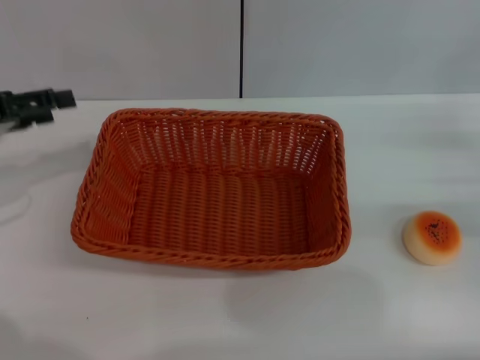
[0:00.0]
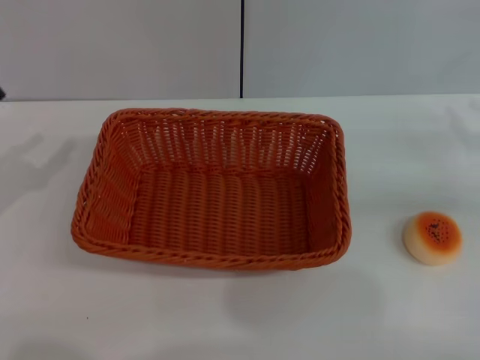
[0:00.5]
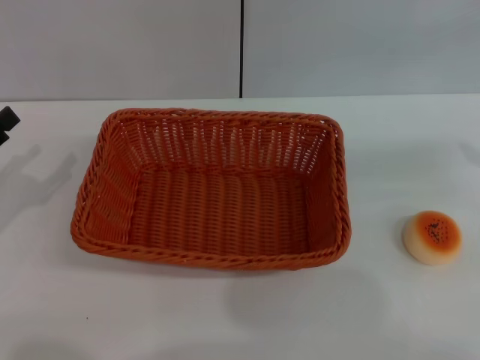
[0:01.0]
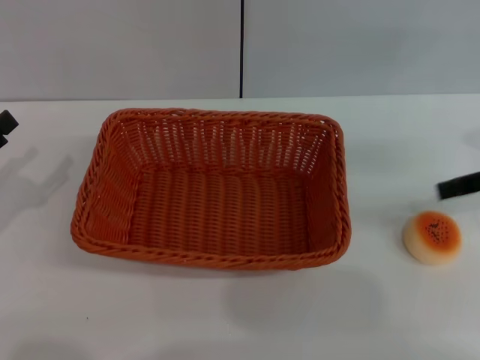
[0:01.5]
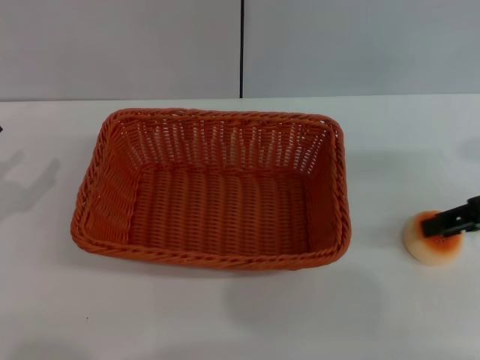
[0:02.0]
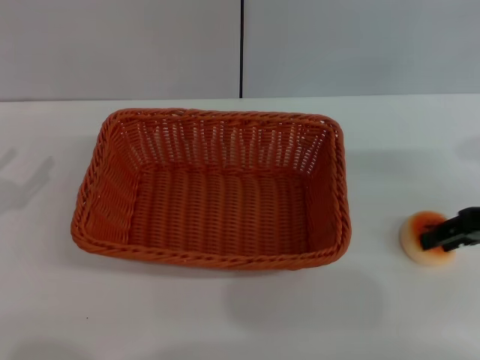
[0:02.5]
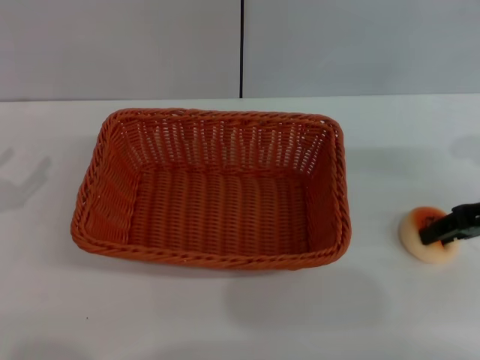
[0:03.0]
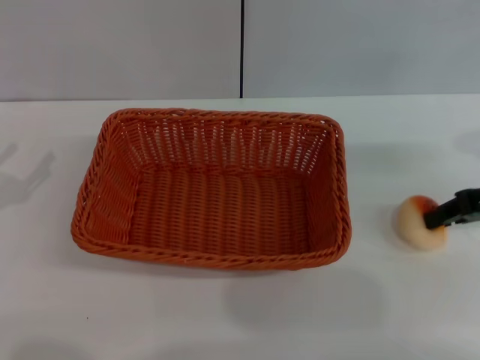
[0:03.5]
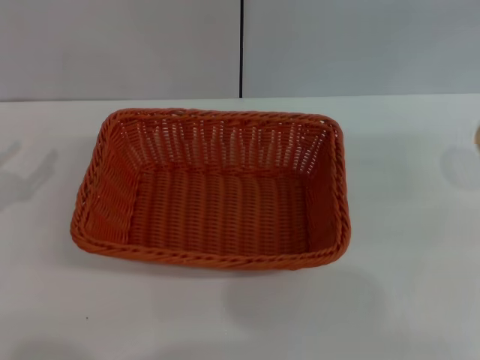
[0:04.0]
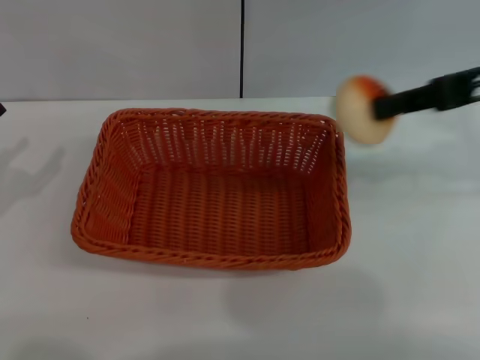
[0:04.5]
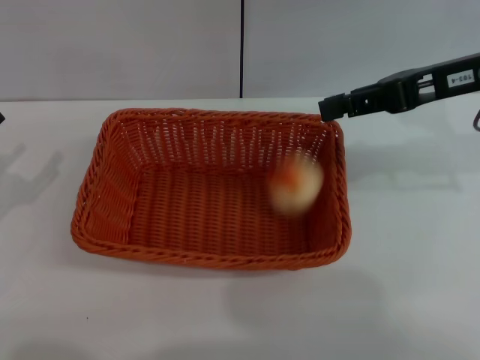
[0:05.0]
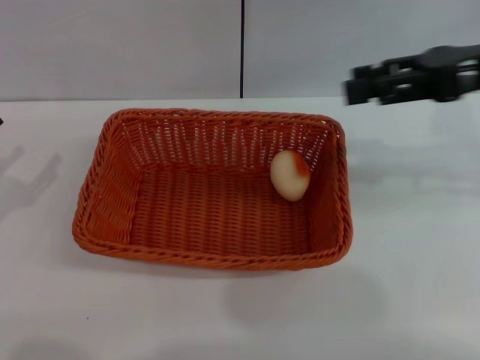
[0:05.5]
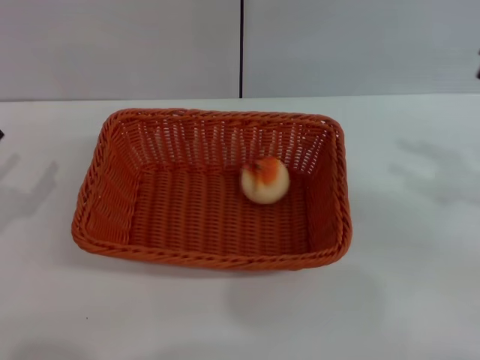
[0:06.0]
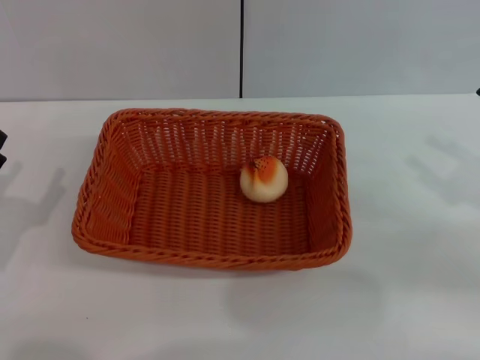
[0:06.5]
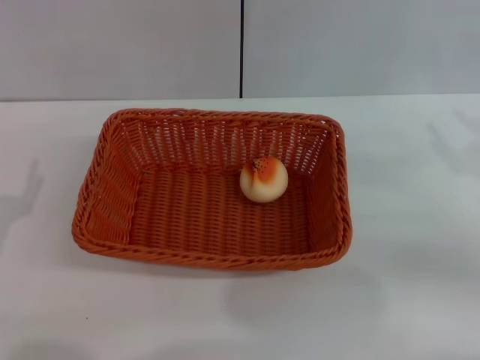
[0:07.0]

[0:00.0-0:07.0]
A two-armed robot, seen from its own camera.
Step, 0:00.0 to 0:03.5: Pick up the egg yolk pastry with the left gripper.
0:00.0 to 0:02.0: The right gripper moves upward, some 10 cm, while the left gripper moves backward and downward, some 10 cm.
0:02.0 to 0:03.5: The right gripper closes its fingers.
0:03.5 to 0:05.0: The right gripper shifts roughly 10 cm upward and to the left.
0:05.0 to 0:07.0: The left gripper travels to the right by approximately 5 cm. Meanwhile the right gripper travels downward, to the right and backward by some 20 cm, and opens.
